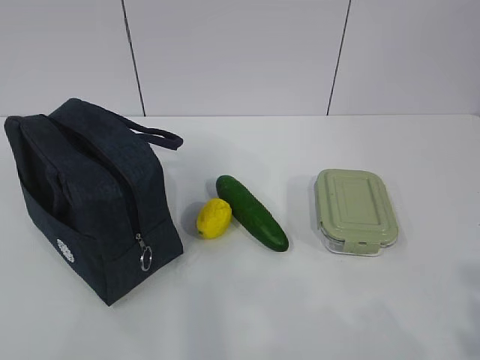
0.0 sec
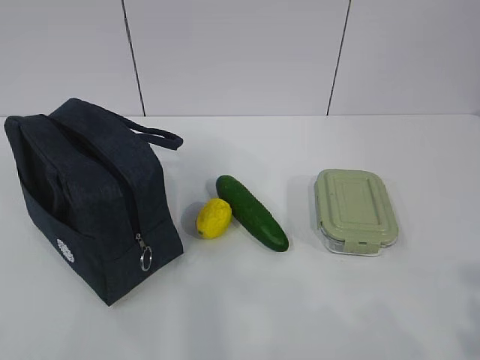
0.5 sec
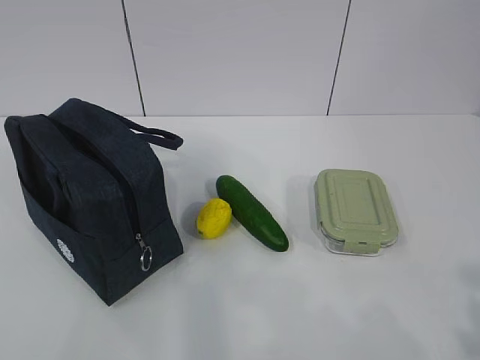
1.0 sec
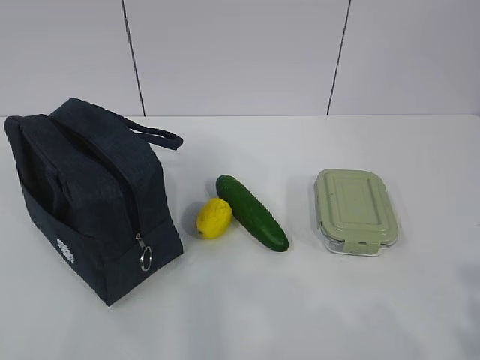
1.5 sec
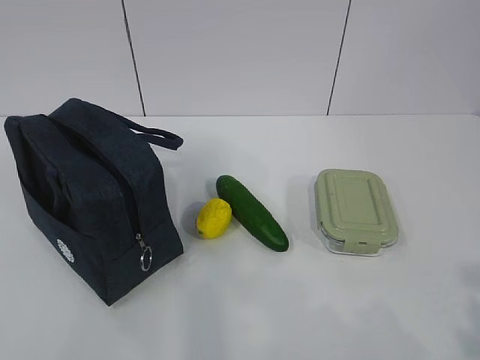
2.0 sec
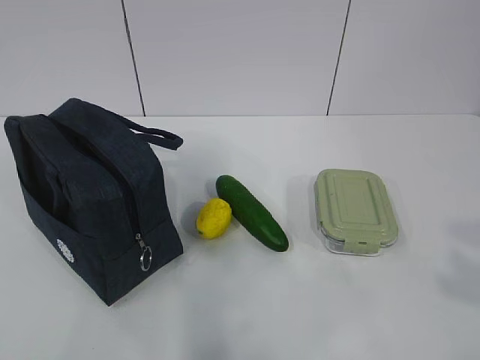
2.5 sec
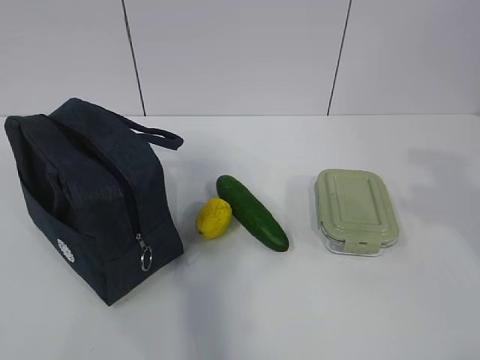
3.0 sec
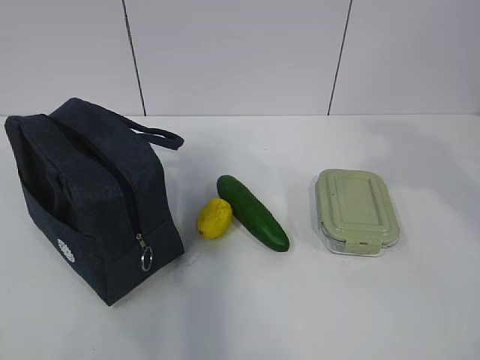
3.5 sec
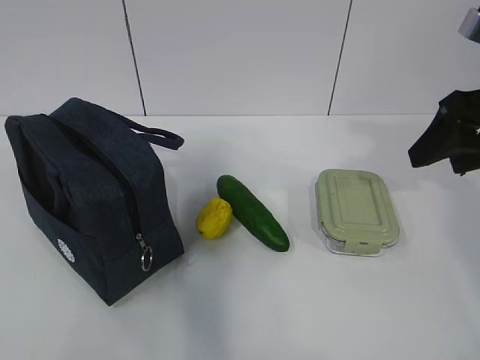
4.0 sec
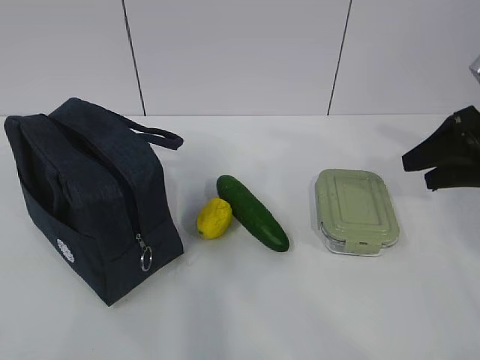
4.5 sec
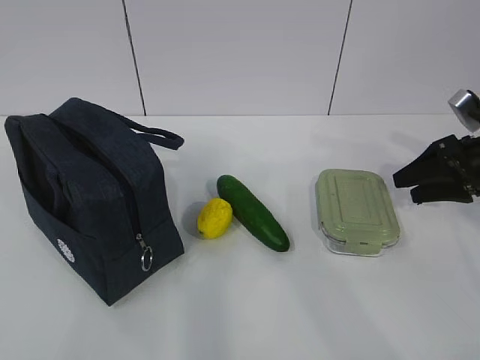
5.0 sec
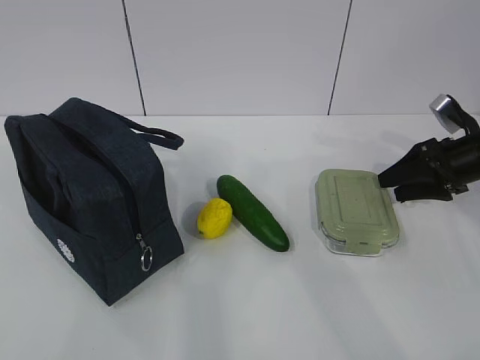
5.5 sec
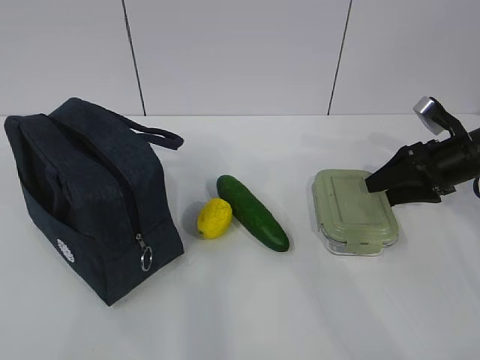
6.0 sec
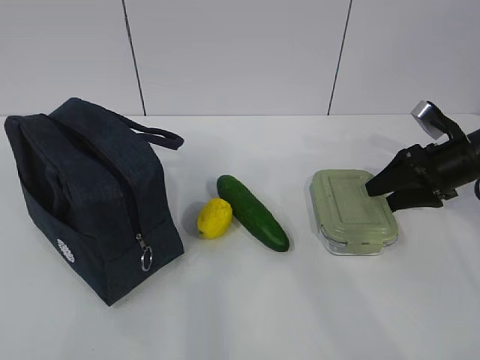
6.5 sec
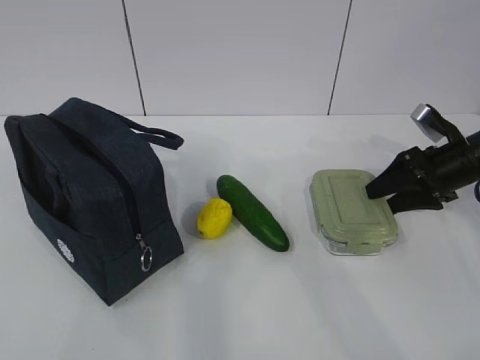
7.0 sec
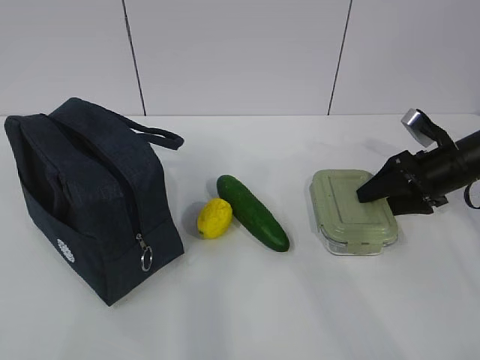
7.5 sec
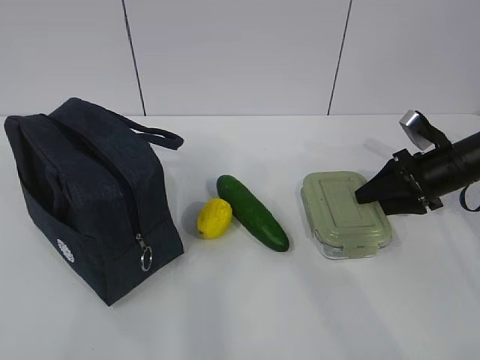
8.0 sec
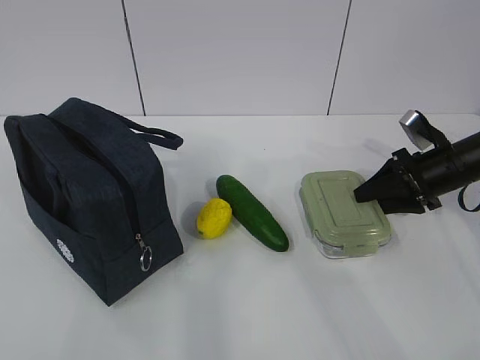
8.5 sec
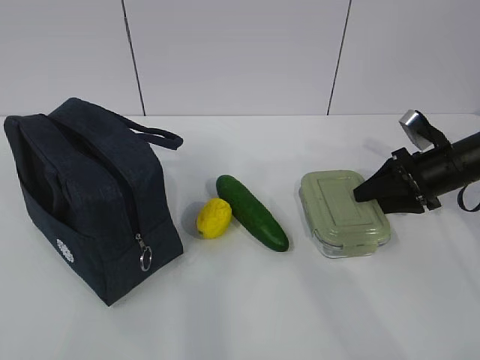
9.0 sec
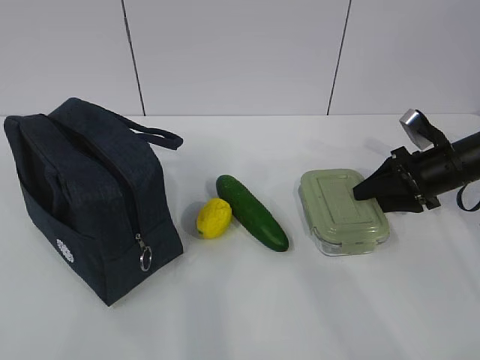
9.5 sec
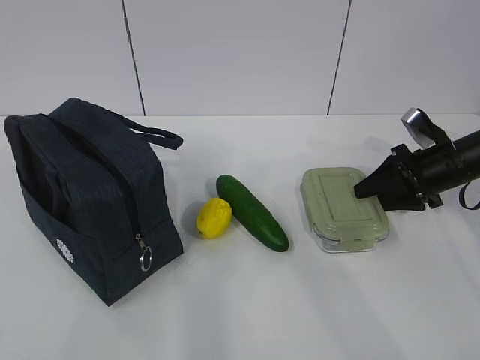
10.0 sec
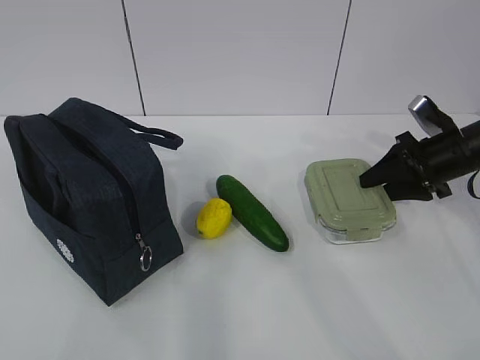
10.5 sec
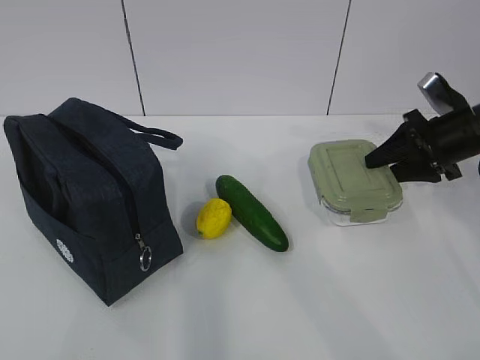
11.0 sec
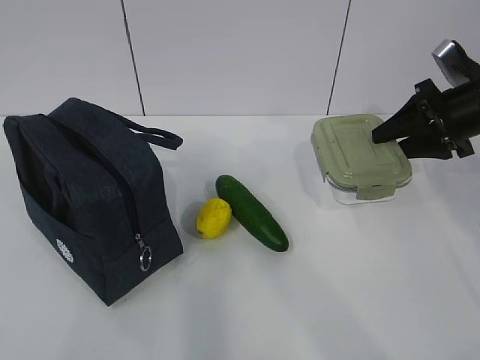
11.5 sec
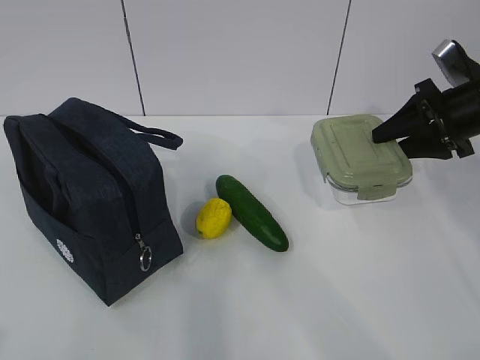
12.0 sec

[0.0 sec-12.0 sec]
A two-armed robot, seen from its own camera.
Step, 0.0 sec to 8.5 sec: Grab the lunch box with your right hand.
2.0 sec to 4.0 sec: The right gripper is displaced forward by approximately 30 cm.
4.0 sec to 6.0 sec: The right gripper travels downward and forward by roughly 20 cm.
6.0 sec to 8.0 sec: The grippers stay close to where they were, moving slightly.
8.0 sec to 10.0 sec: Both grippers stay about where they are.
10.0 sec to 12.0 sec: The right gripper moves upward, roughly 10 cm.

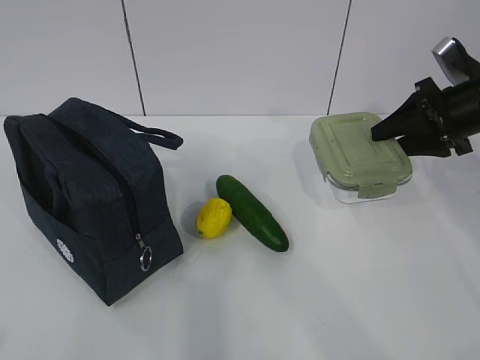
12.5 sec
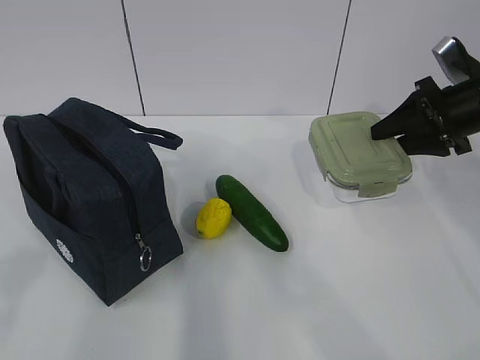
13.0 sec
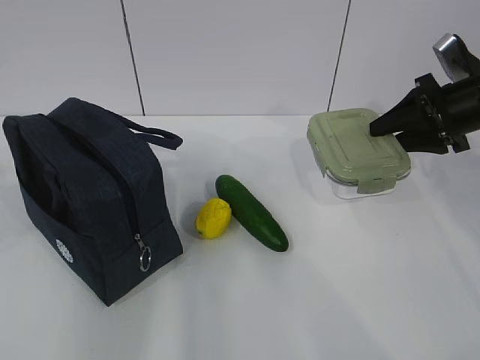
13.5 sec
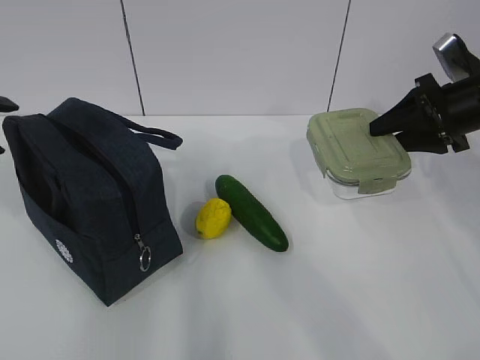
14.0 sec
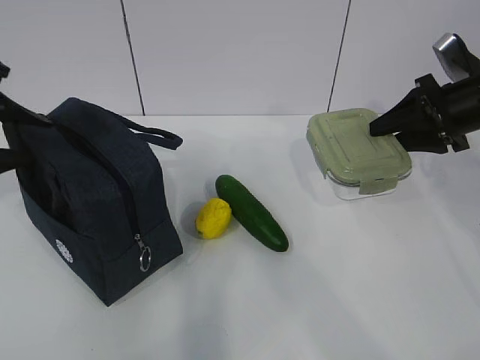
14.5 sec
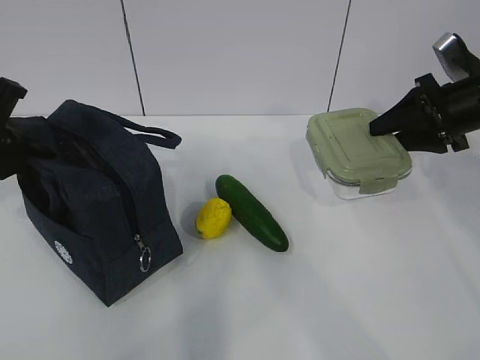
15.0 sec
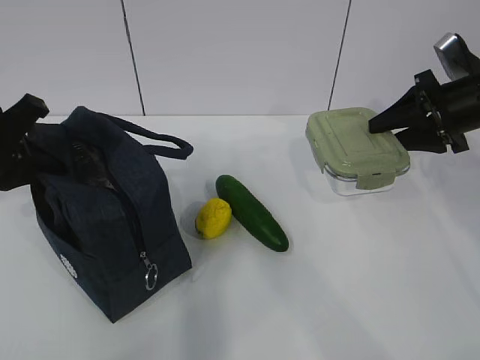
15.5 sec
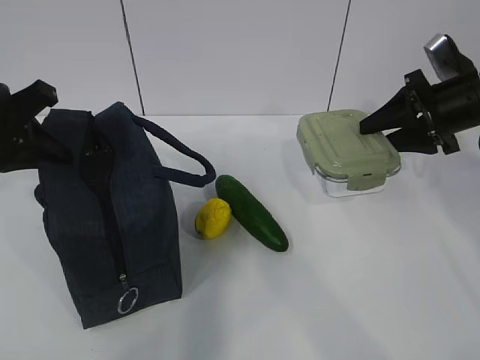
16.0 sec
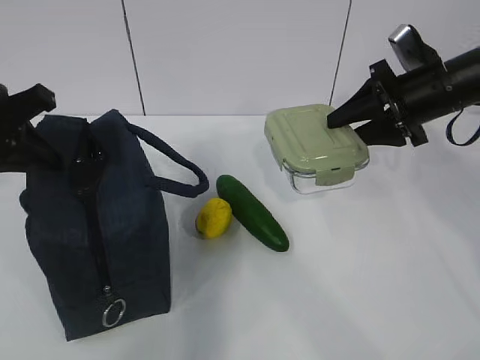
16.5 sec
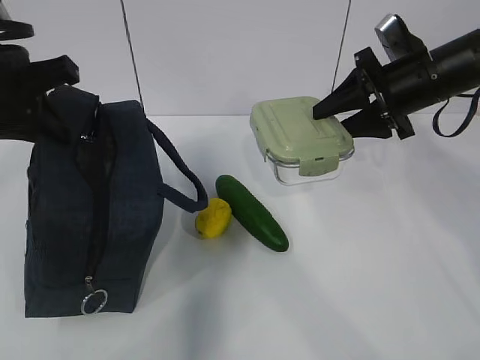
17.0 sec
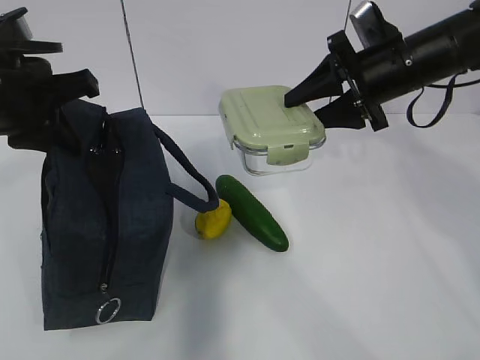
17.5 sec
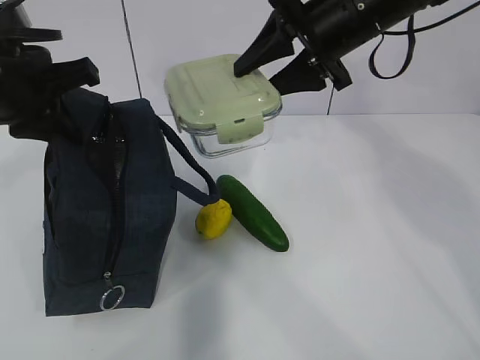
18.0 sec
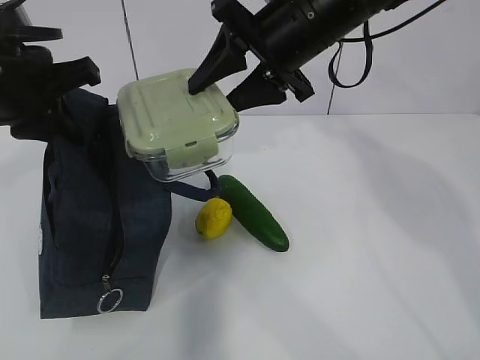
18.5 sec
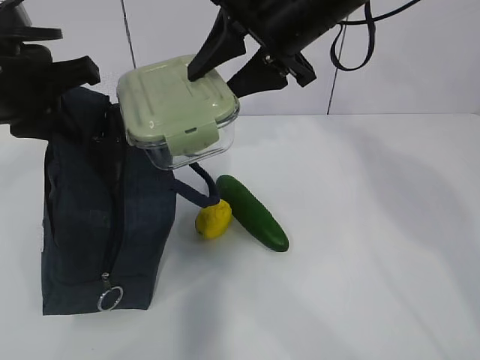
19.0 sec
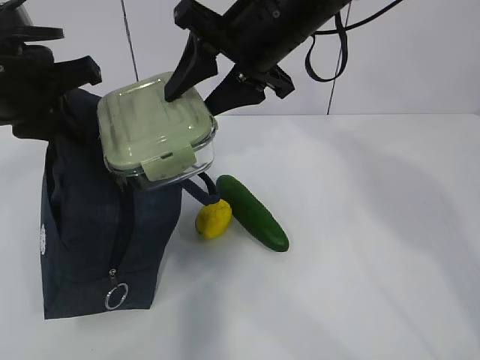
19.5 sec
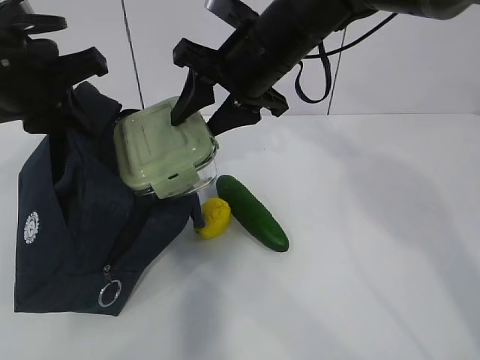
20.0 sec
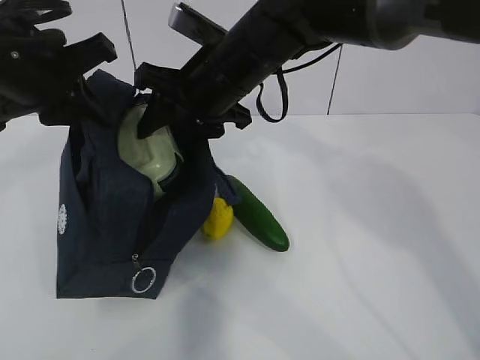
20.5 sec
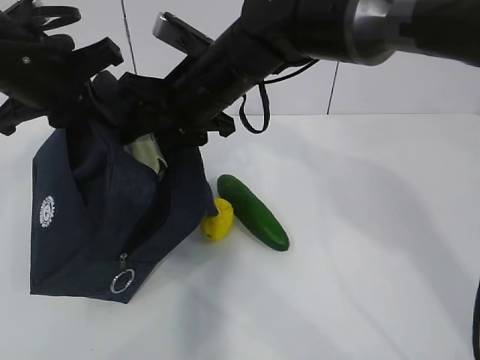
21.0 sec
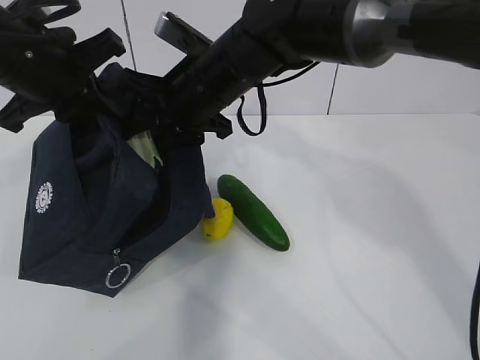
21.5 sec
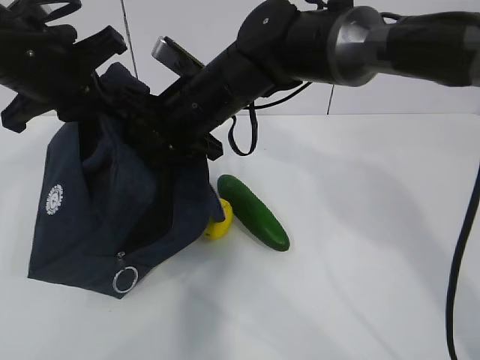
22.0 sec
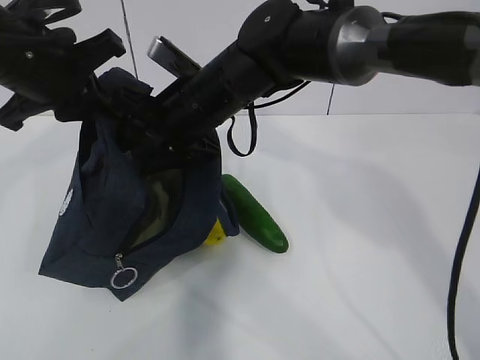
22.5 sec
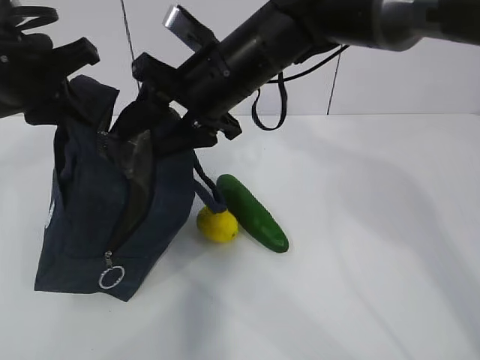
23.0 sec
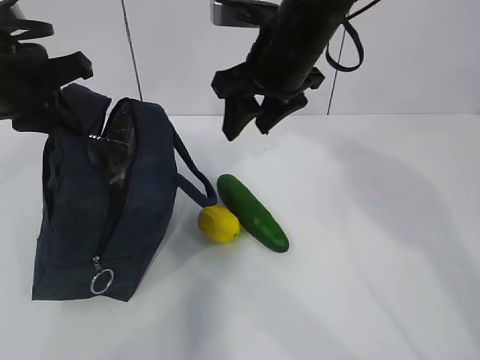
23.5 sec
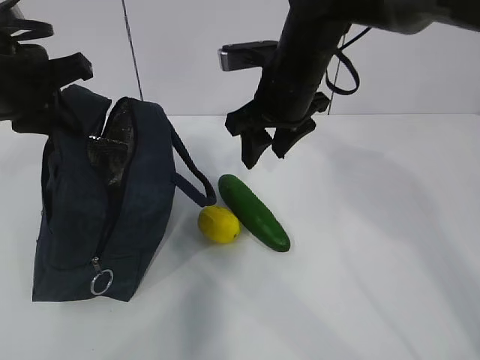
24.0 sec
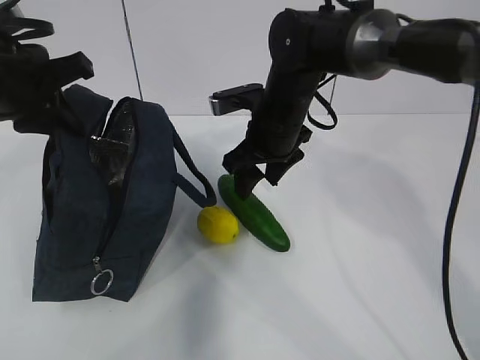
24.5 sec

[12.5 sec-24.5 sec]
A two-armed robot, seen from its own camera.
Step, 12.5 sec to 16.0 sec: Grab the lunch bag with your left hand.
Step, 16.5 sec to 18.5 sec: Place it into the bag with your right hand.
Step, 19.0 sec to 21.0 sec: Grab the cucumber with your right hand.
Step, 21.5 sec to 23.5 sec: Place it into the bag with your right hand.
12.5 sec to 14.5 sec: The left gripper travels forward by about 30 cm.
14.5 sec to 16.5 sec: The left gripper closes its fingers. The right gripper heads to the left, covering approximately 5 cm.
16.5 sec to 18.5 sec: The left gripper goes about 5 cm to the right. Meanwhile the right gripper shifts some 20 cm to the left and upward.
18.5 sec to 20.5 sec: The right gripper moves to the left and downward, roughly 10 cm.
22.5 sec to 24.5 sec: The right gripper travels to the right by about 10 cm.

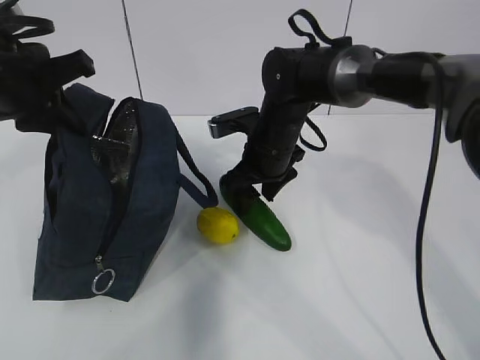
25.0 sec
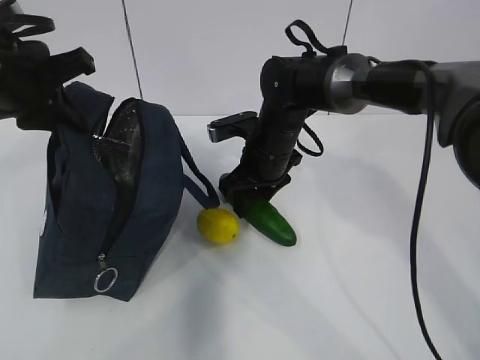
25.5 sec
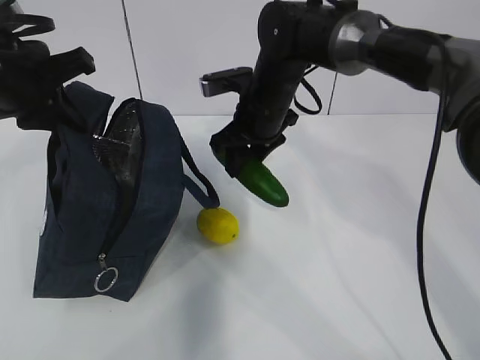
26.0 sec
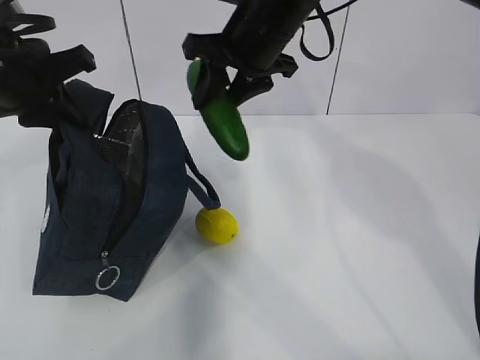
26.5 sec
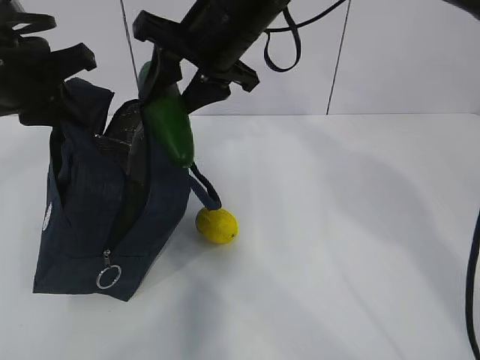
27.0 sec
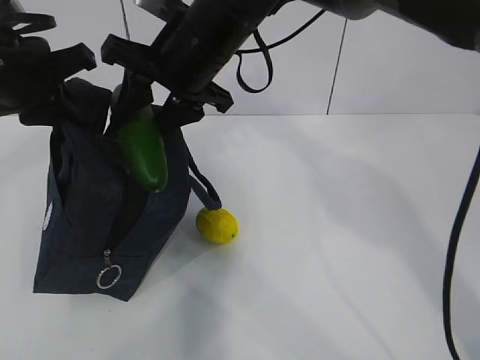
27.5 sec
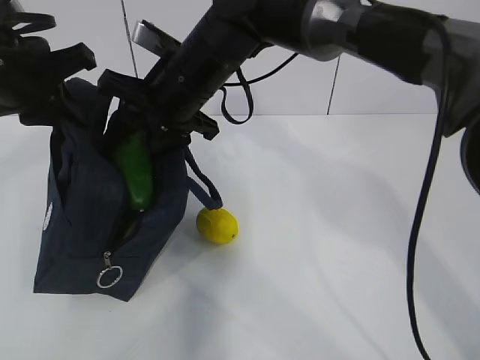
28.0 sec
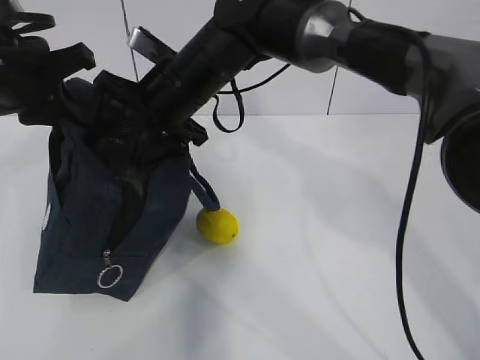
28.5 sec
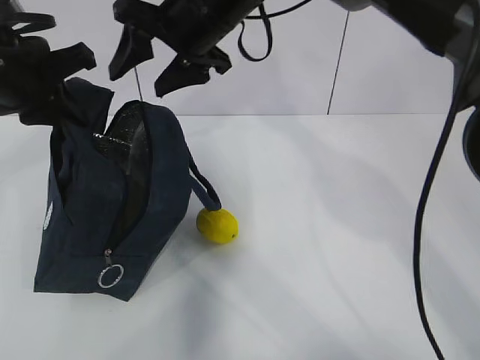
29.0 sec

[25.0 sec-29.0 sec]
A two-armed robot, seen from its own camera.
25.0 sec to 27.0 sec: The right gripper is displaced upward by roughly 15 cm.
